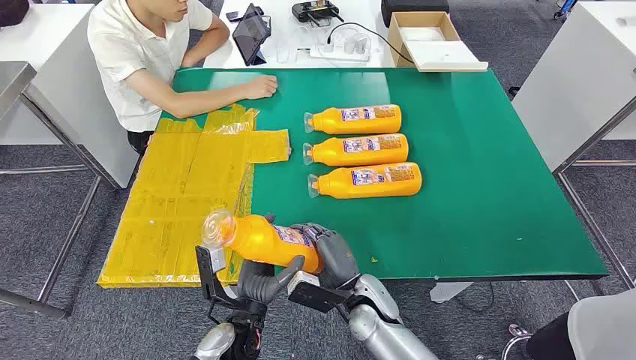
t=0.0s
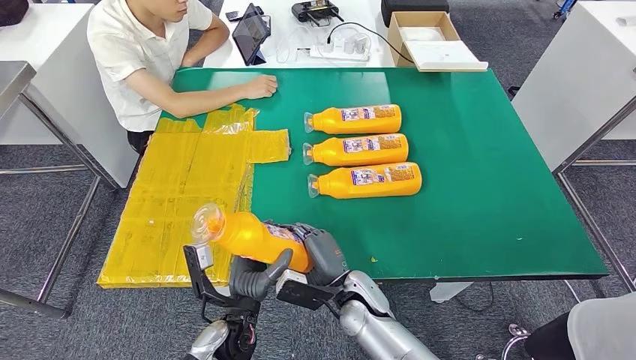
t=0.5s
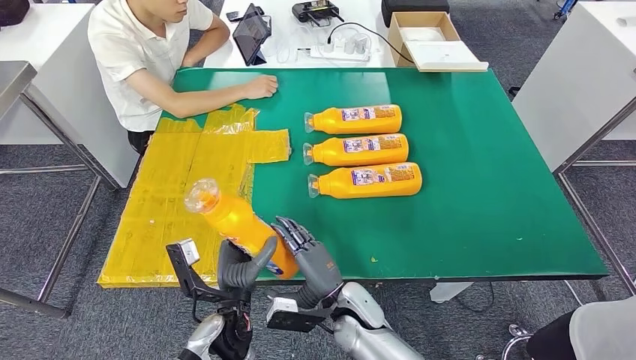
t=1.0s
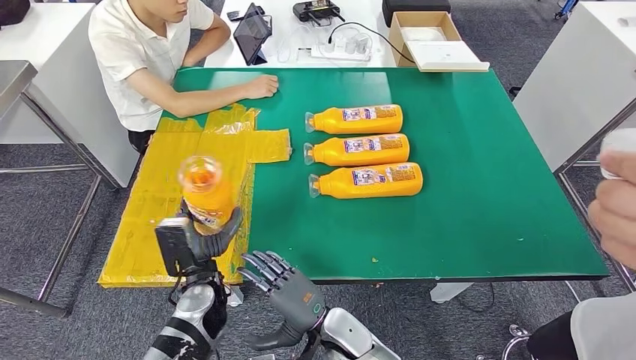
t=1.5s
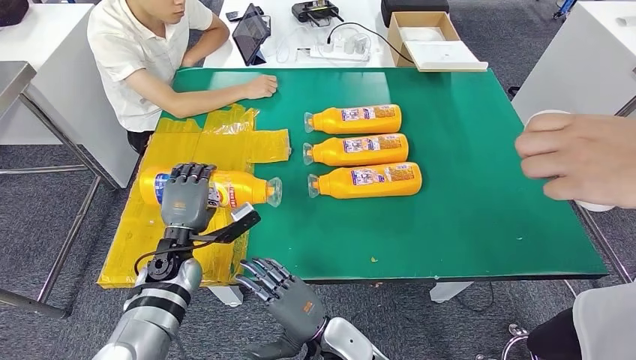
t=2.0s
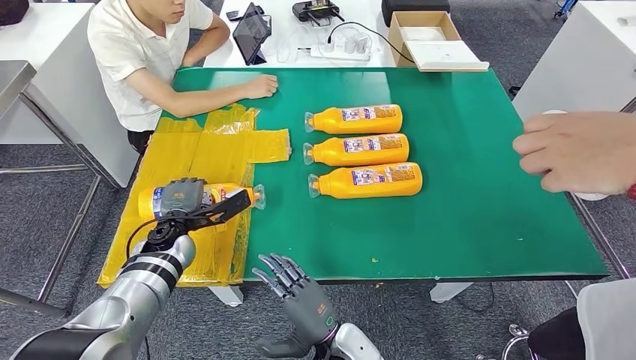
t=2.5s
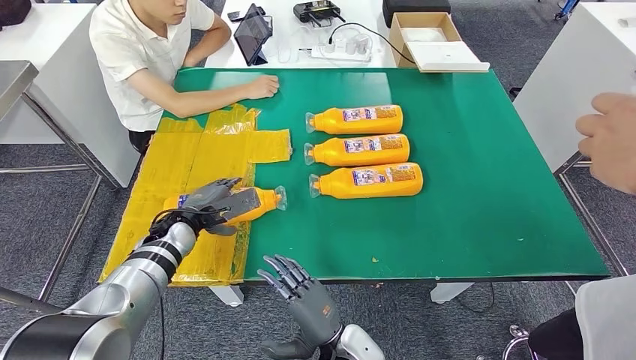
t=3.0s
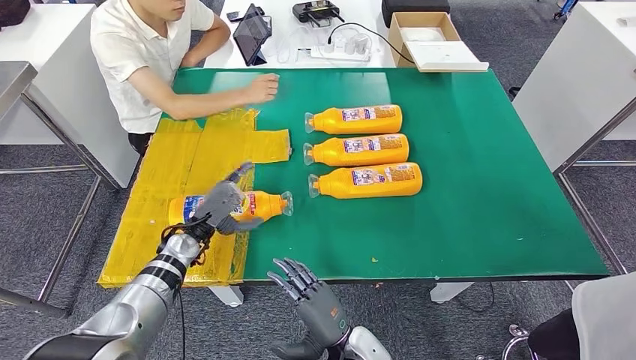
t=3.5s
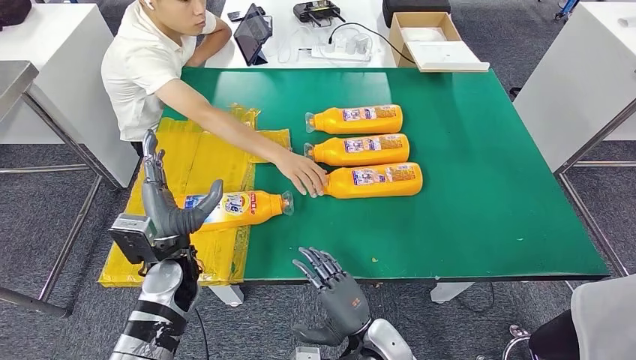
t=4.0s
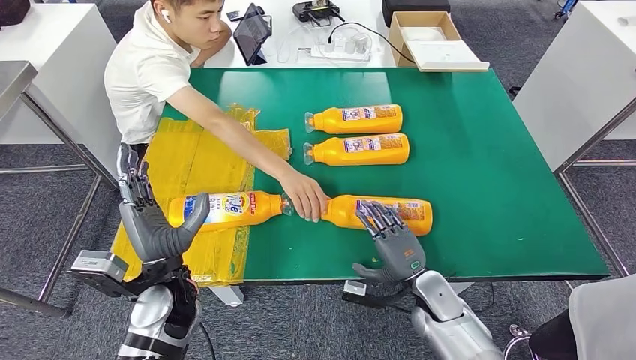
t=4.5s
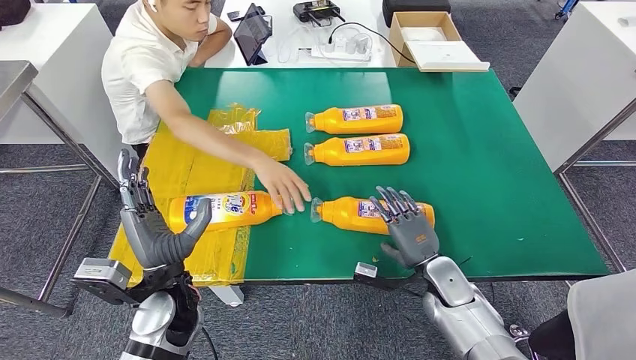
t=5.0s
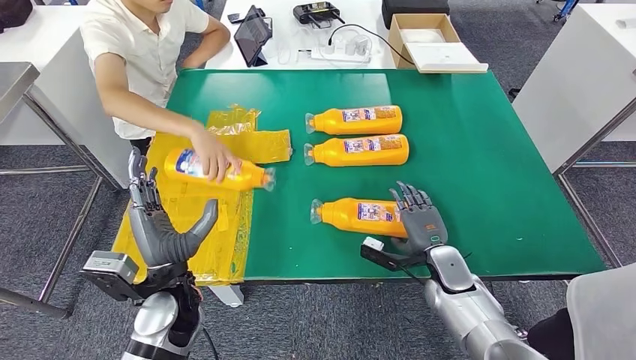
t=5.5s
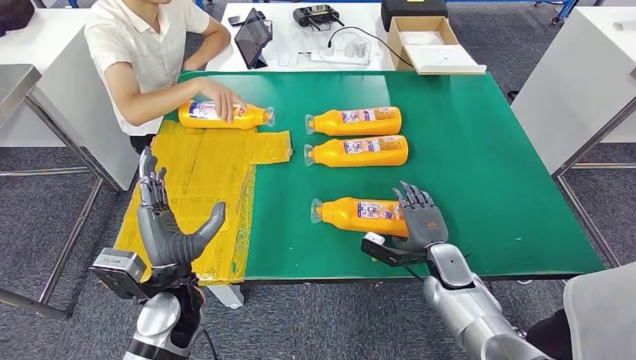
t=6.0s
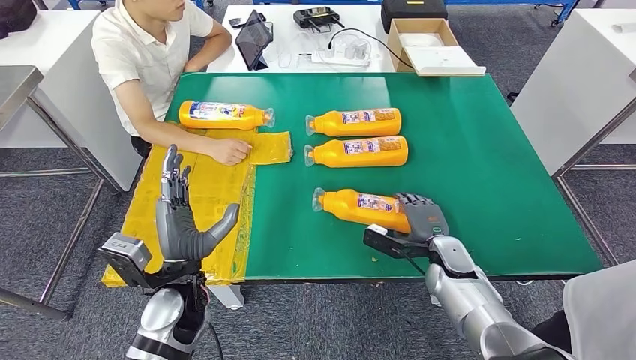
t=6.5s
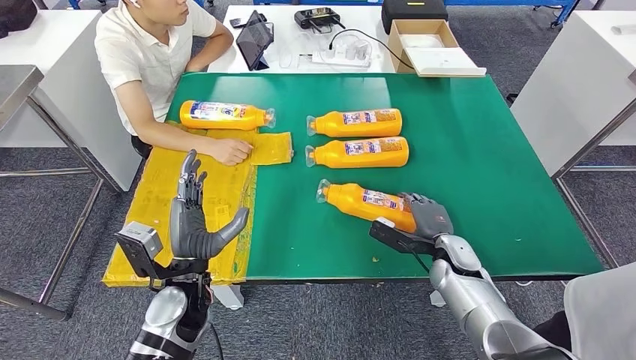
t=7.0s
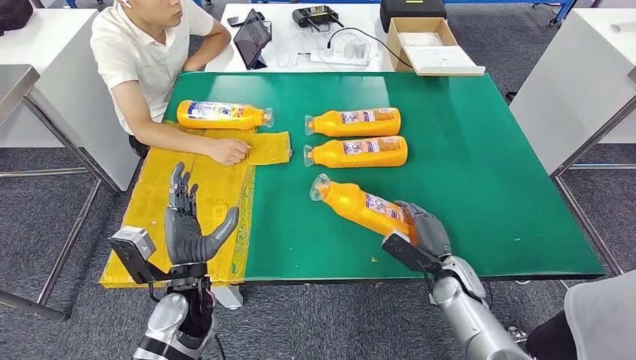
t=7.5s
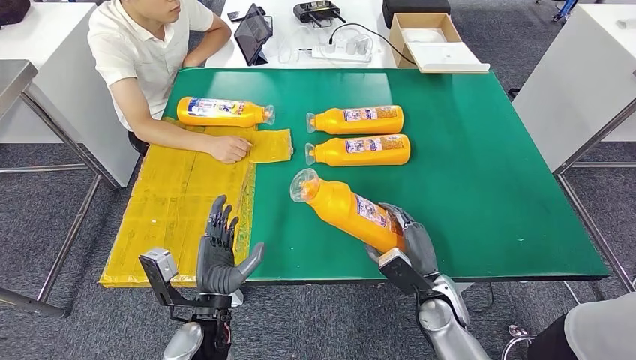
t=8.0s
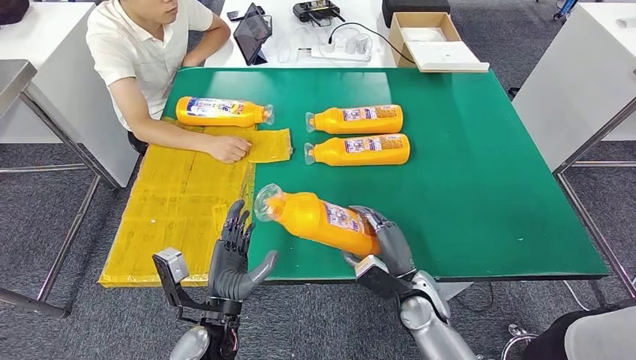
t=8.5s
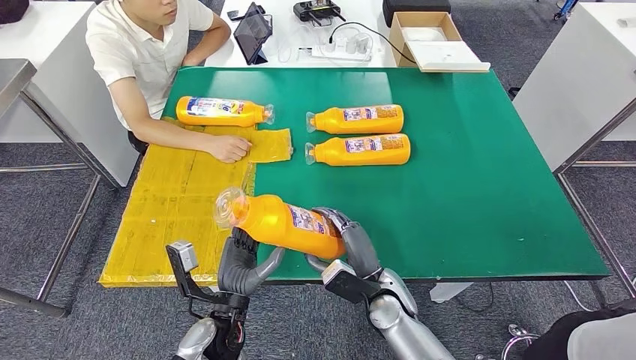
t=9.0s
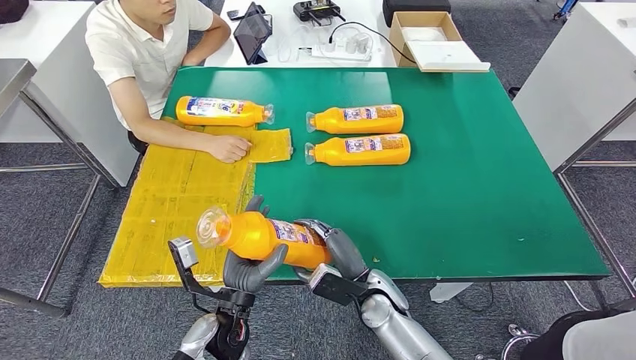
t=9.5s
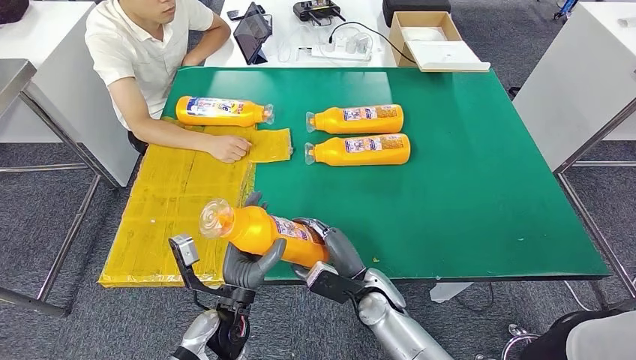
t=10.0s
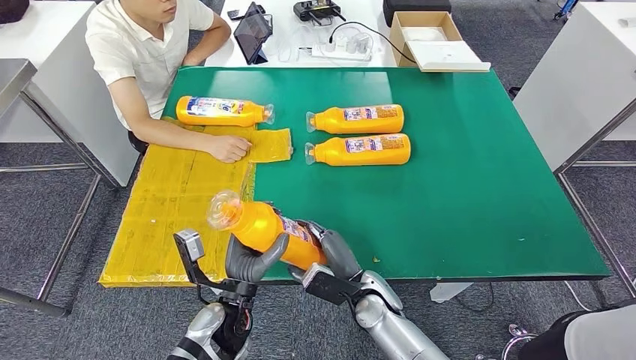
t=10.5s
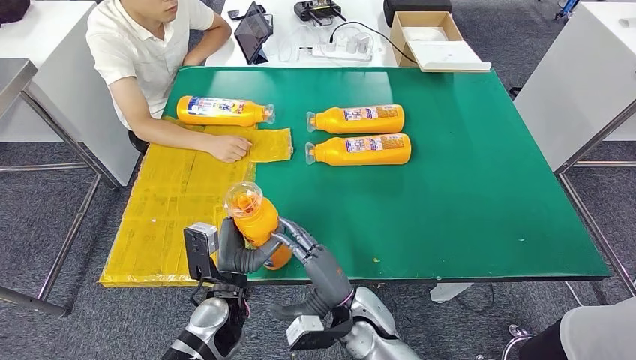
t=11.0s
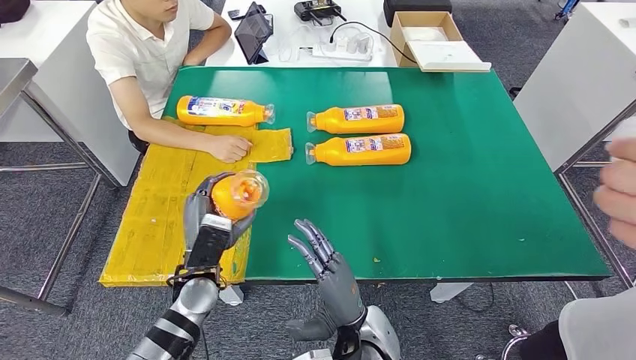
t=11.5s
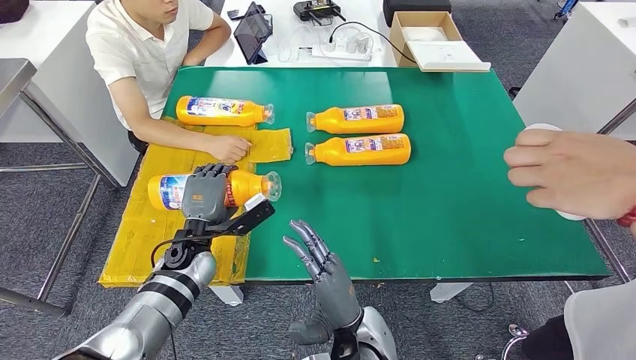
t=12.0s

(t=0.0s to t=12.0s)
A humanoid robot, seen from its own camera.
Step, t=0.0s - t=1.0s: Take the fast-moving consumer goods bottle from the table.
Step, t=1.5s - t=3.5s: Flip the fast-moving consumer goods bottle to the front side.
Step, t=4.0s - t=7.5s: Pick up the fast-moving consumer goods bottle from the table.
t=8.0s - t=10.0s: The right hand is displaced to the left by about 10 cm.
t=10.0s - t=12.0s: The left hand travels forward and to the left by about 15 cm. The right hand shifts about 10 cm backward.

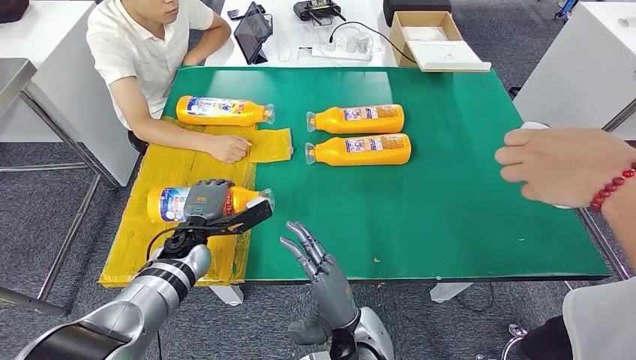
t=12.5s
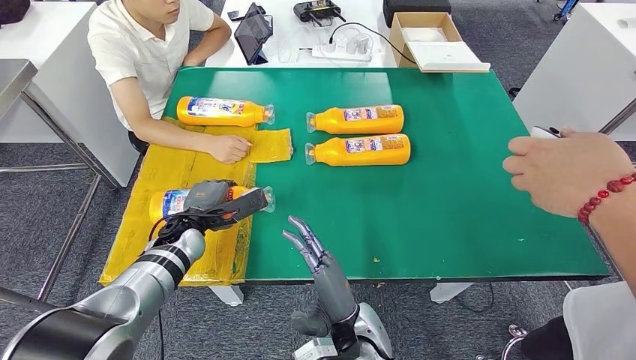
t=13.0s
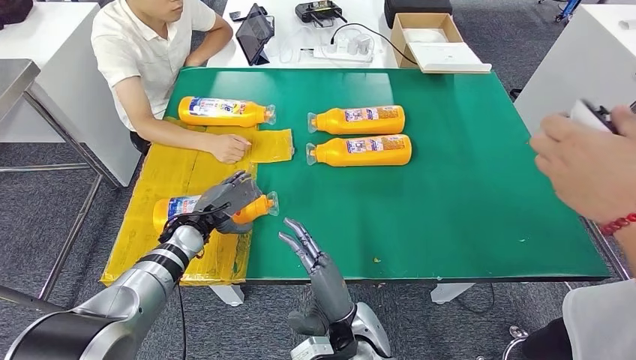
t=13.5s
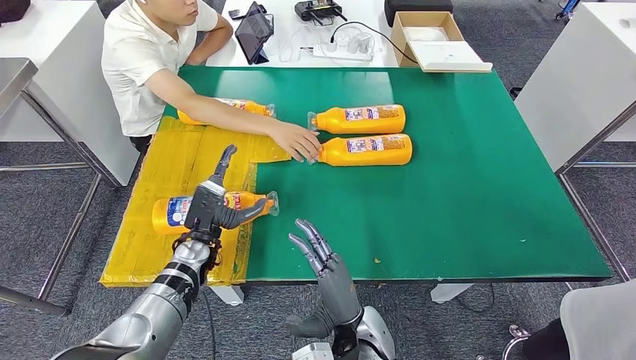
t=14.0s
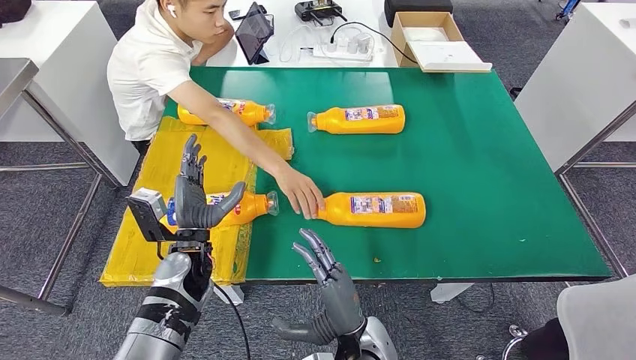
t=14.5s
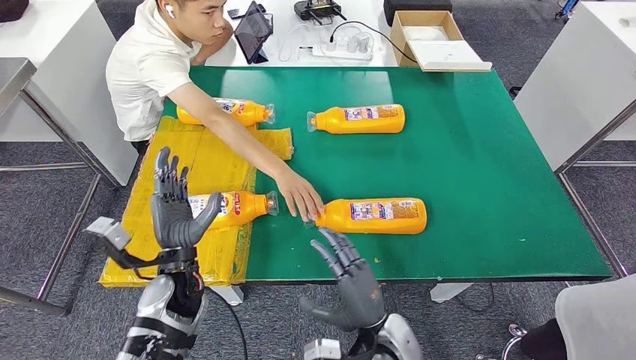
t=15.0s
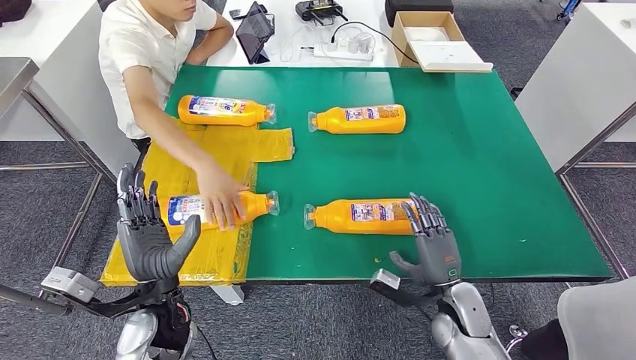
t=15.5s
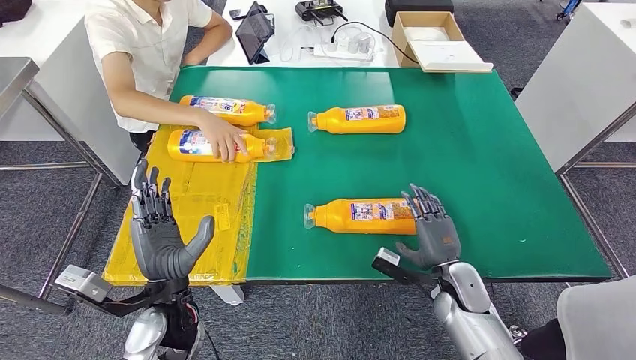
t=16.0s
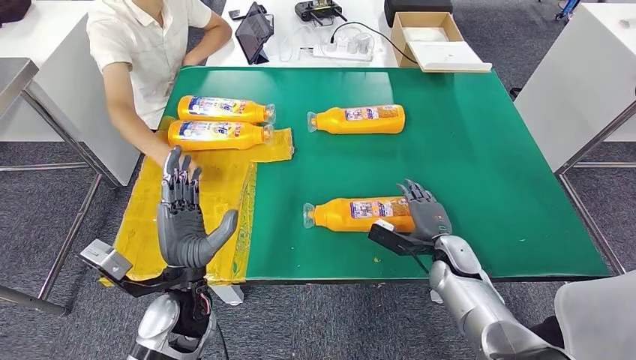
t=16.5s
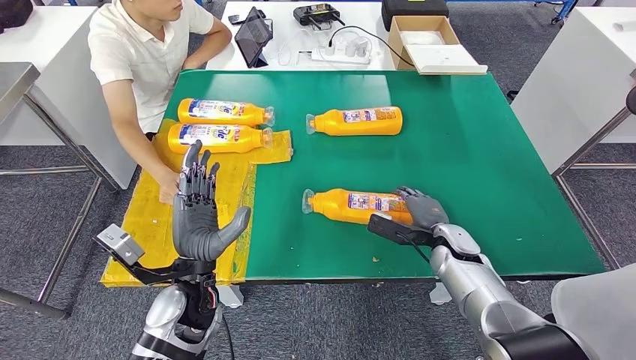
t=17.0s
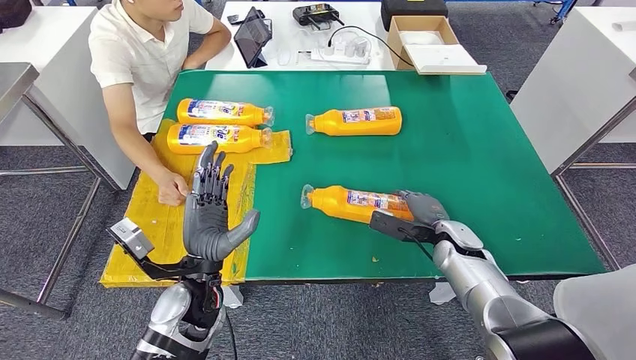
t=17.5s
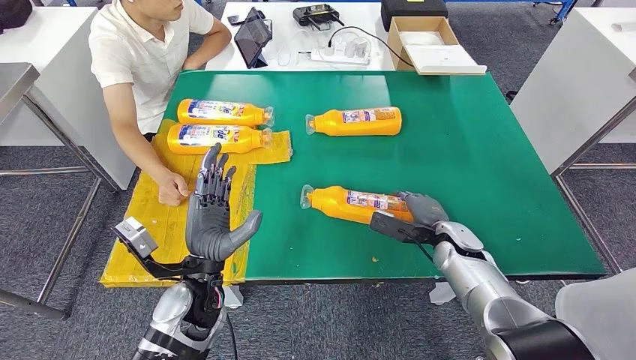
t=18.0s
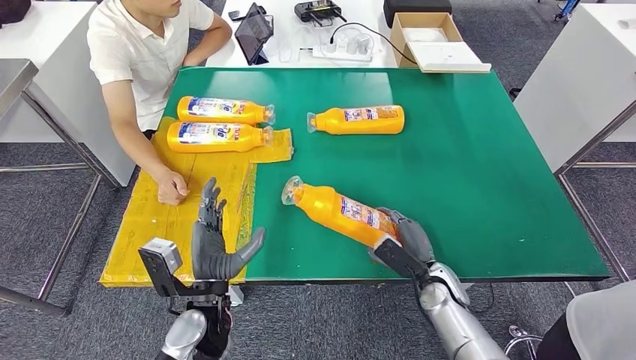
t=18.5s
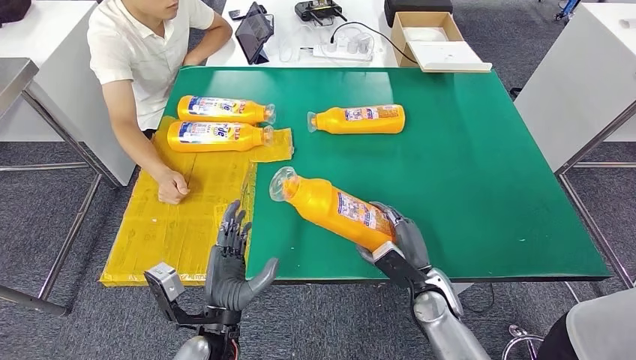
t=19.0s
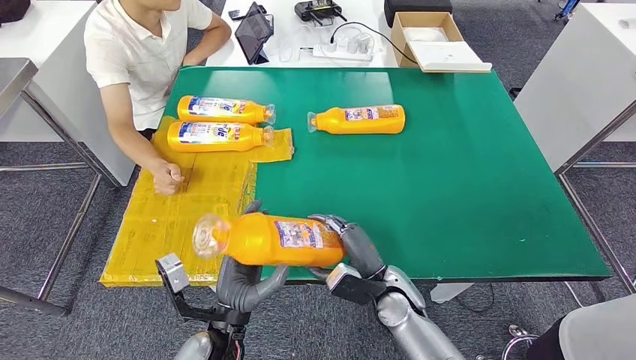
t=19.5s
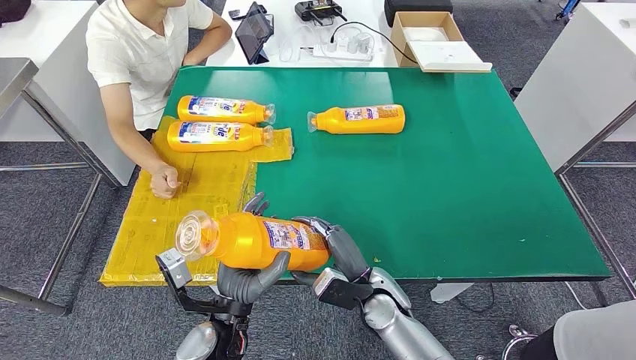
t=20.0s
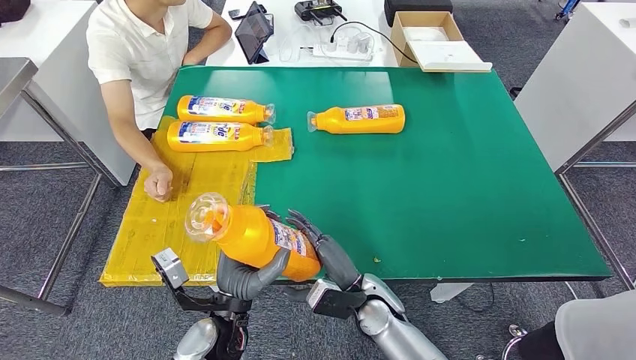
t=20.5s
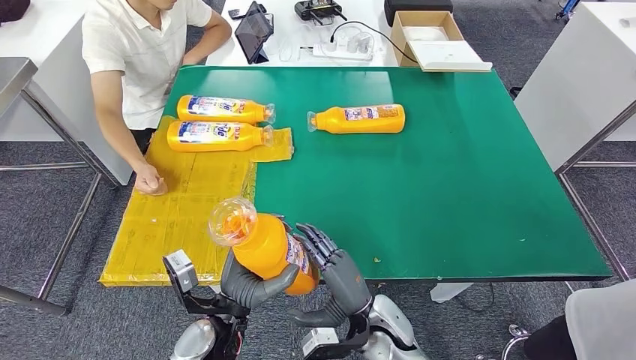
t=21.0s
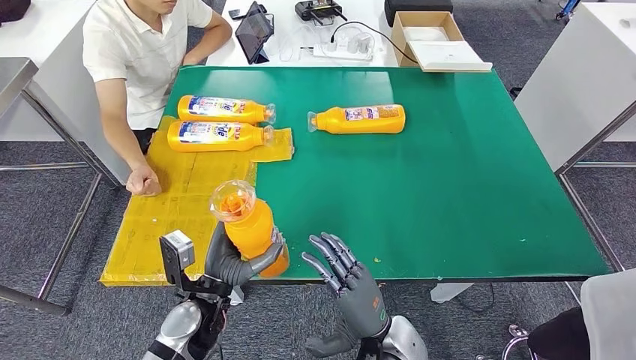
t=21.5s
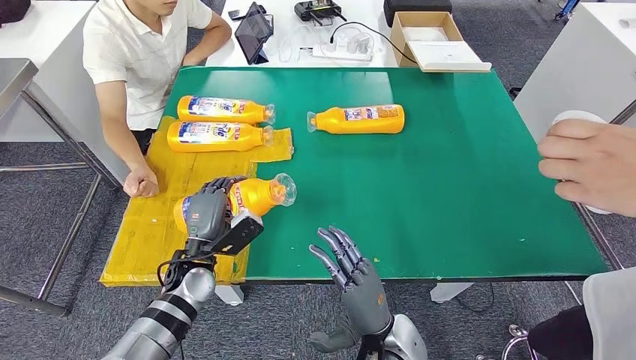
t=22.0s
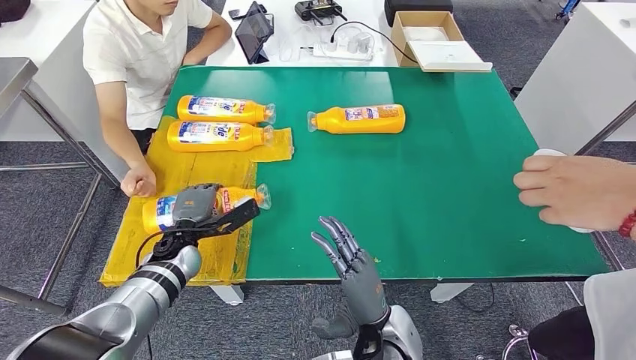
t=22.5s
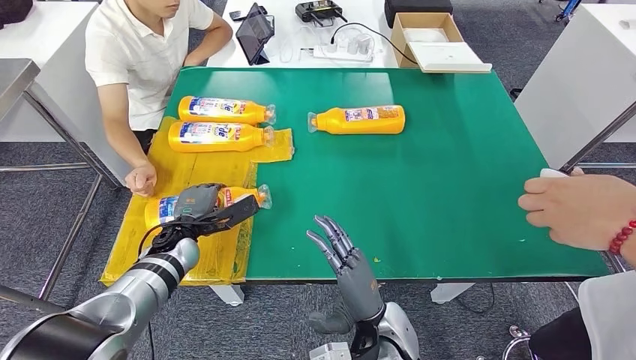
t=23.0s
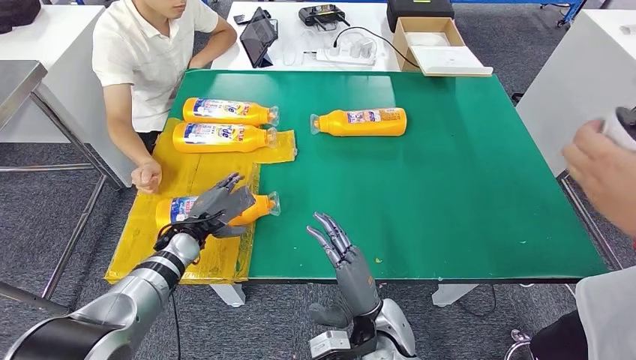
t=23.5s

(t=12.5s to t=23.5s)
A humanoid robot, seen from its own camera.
Step, t=12.5s - t=19.5s: Pick up the fast-moving consumer goods bottle from the table.
Step, t=20.5s - t=23.0s: Flip the fast-moving consumer goods bottle to the front side.
t=20.0s - t=21.5s: The right hand shifts about 10 cm backward. The left hand ends up some 5 cm from where it was.
